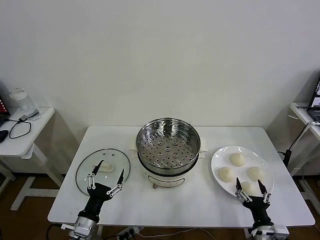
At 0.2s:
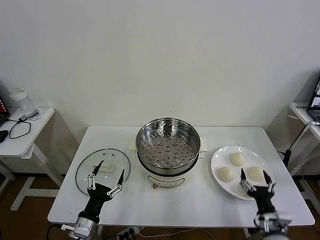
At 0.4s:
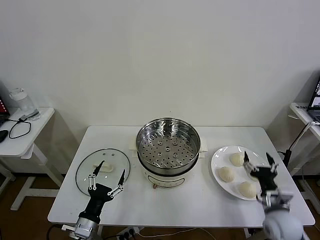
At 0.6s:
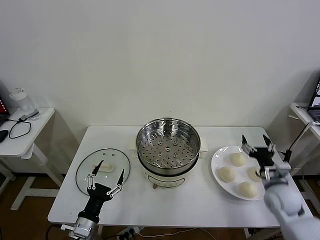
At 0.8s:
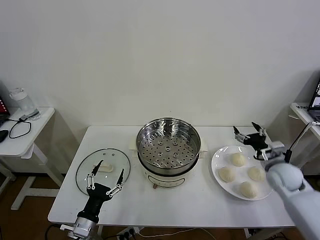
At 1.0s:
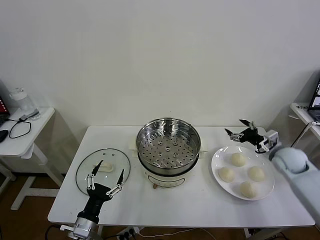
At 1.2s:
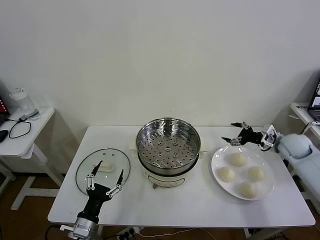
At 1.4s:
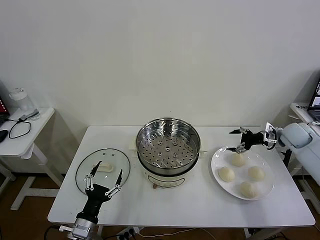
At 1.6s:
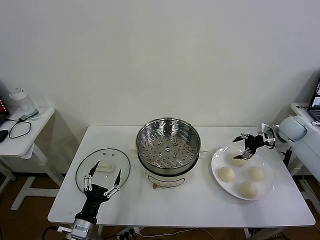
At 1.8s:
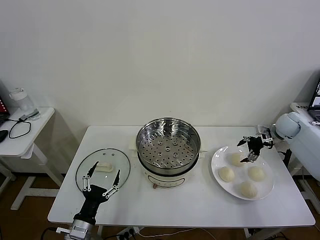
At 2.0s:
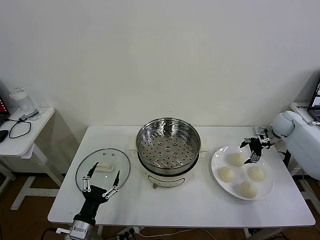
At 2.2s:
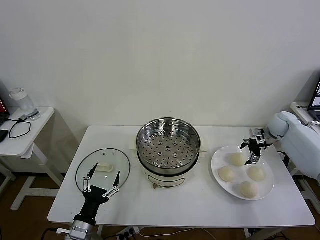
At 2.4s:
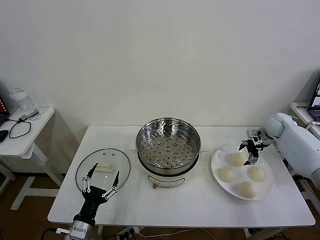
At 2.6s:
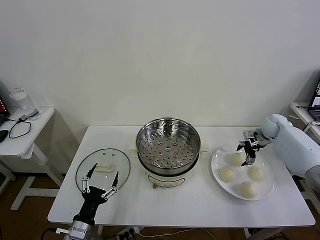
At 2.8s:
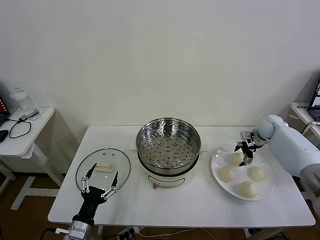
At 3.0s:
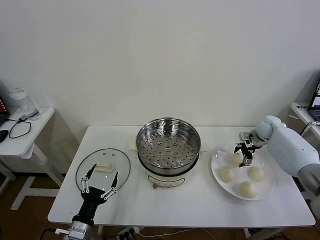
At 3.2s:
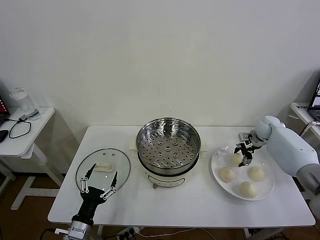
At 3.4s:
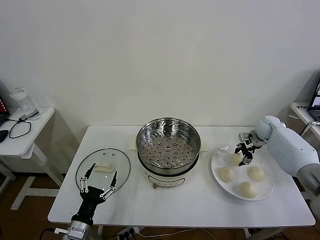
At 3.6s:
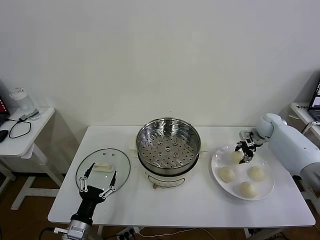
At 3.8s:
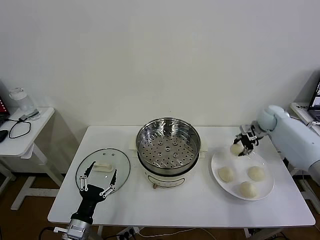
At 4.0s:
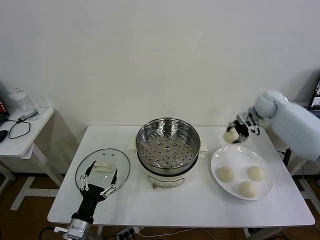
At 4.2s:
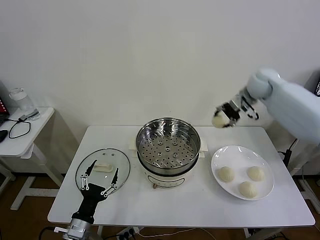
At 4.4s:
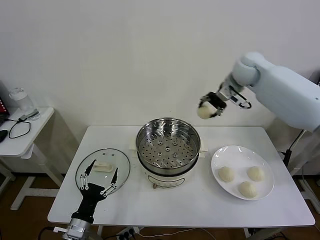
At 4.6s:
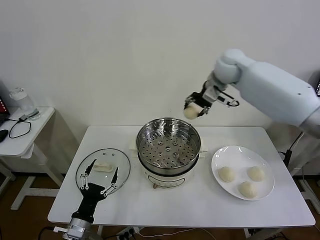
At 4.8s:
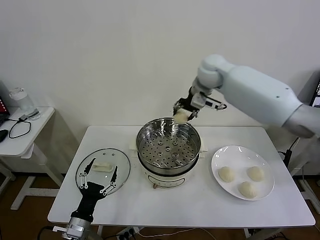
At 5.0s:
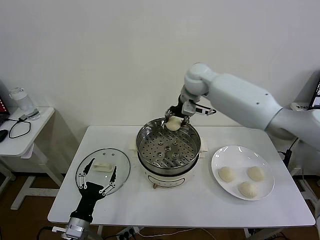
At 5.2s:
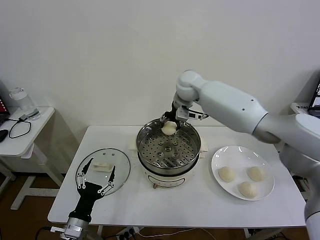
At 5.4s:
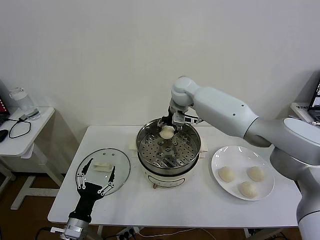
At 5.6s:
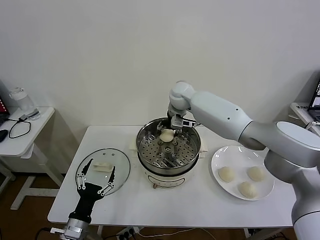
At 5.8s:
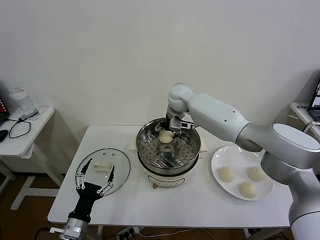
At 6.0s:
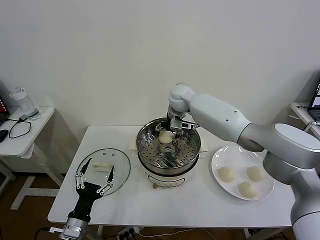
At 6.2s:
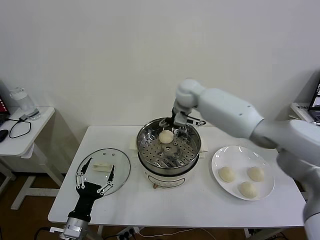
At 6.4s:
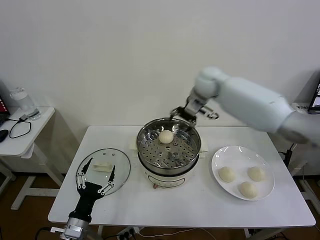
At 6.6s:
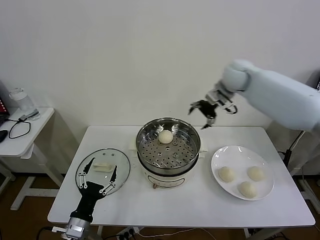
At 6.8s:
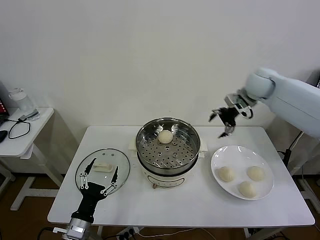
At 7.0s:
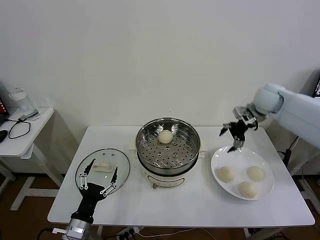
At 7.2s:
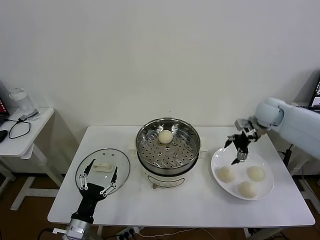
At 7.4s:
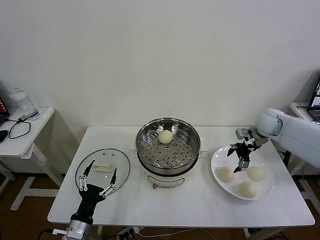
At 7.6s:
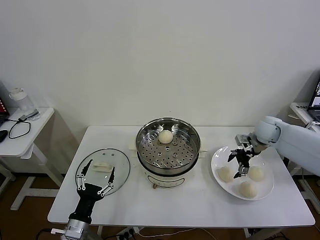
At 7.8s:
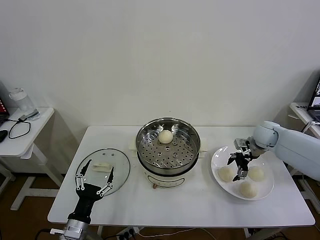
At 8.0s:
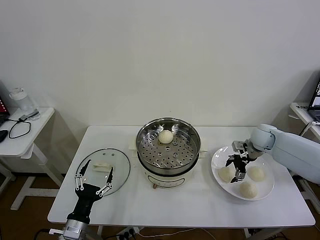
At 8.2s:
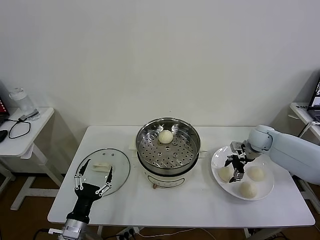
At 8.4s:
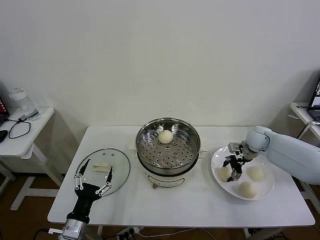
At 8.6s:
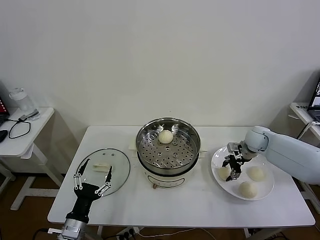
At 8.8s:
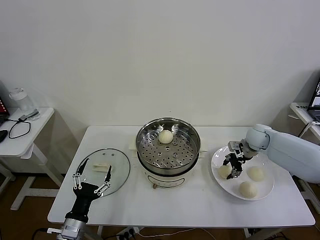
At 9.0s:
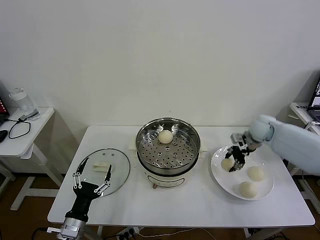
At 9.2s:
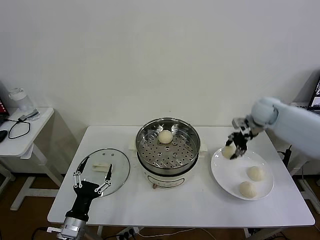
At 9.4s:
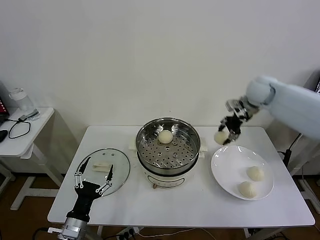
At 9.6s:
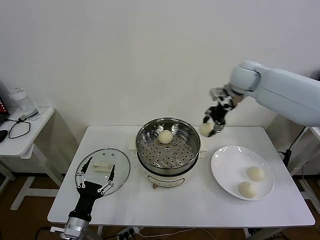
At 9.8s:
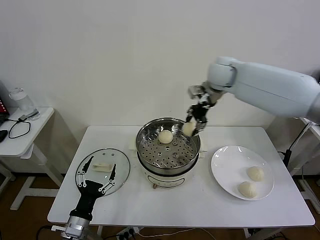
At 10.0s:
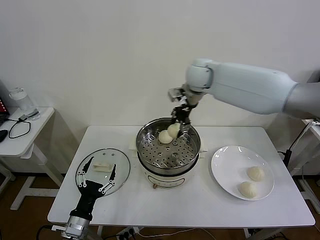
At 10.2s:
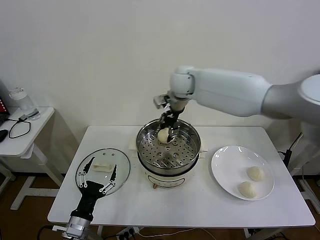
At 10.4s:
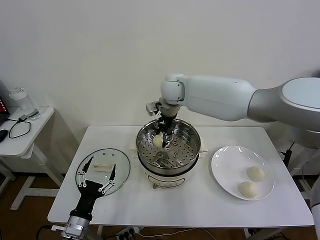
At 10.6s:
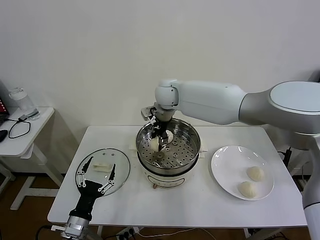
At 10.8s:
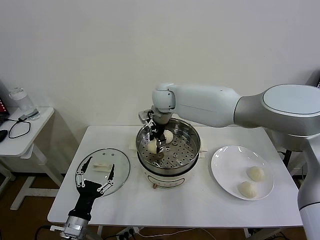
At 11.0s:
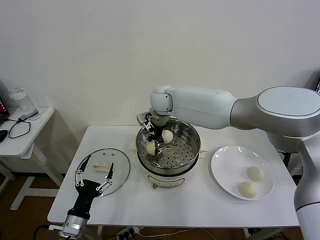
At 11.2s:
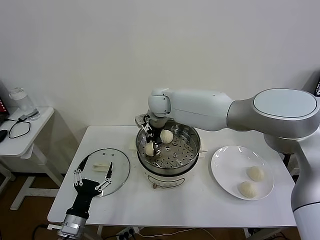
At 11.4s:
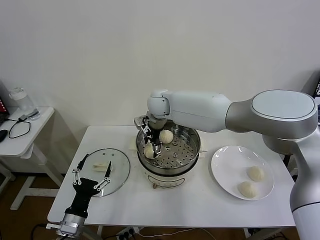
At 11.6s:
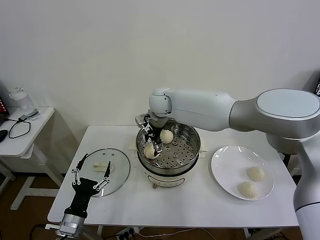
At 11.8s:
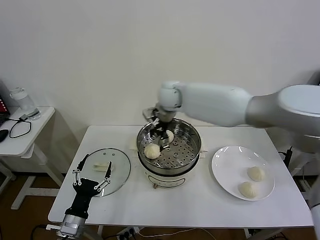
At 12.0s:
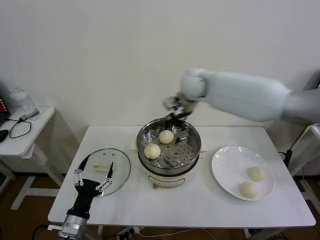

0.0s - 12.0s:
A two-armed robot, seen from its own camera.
Task of the whole recording: take steamed baozi put them in steamer then cover it.
Step, 0.0s - 3.4s: Grasp the baozi in the plate with right gripper.
Step, 3.6s - 6.0s: Place the baozi on the steamer with right gripper.
Step, 6.2s - 8.6s: Grasp the baozi in the plate with right gripper.
Step, 8.8s - 11.4s: Place the baozi on the steamer with right gripper.
1.6s - 3.0s: The right gripper travels downward and forward by roughly 10 cm.
3.0s - 4.4s: The right gripper heads upward and to the left, covering some 35 cm, and closes its fingers.
4.4s - 6.0s: The right gripper goes approximately 20 cm to the left and downward, and opens its fingers.
6.0s - 7.6s: The right gripper shifts about 30 cm to the right.
7.6s - 9.0s: The right gripper closes its fingers.
9.0s - 10.4s: The right gripper is displaced to the left by about 35 cm.
10.4s - 12.0s: The right gripper is displaced to the right by approximately 10 cm, and opens its fingers.

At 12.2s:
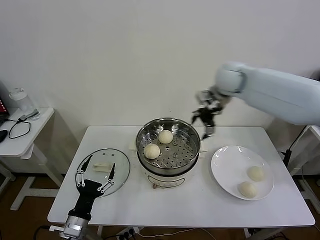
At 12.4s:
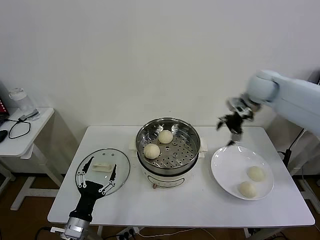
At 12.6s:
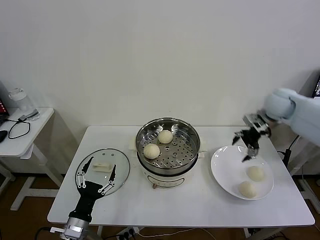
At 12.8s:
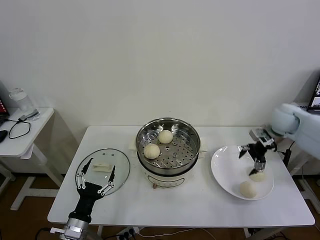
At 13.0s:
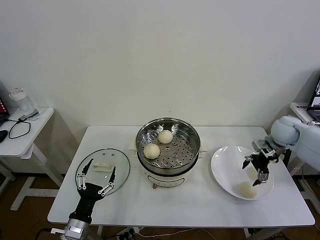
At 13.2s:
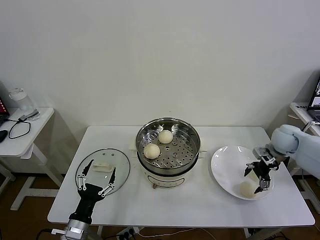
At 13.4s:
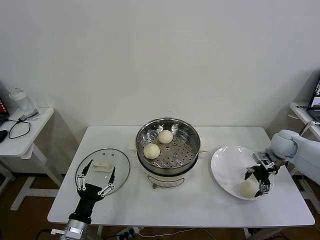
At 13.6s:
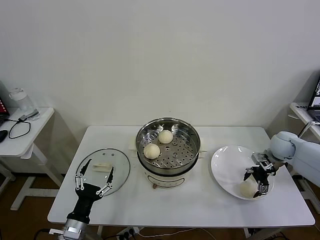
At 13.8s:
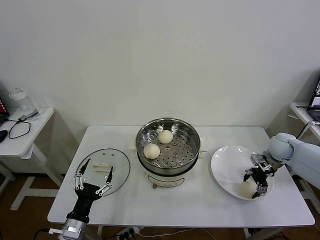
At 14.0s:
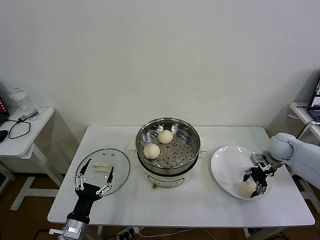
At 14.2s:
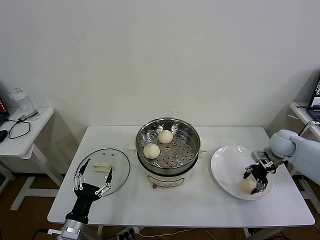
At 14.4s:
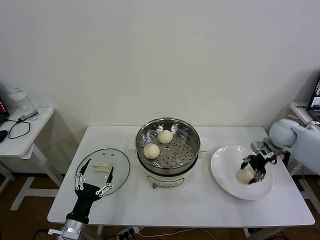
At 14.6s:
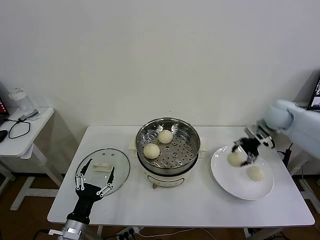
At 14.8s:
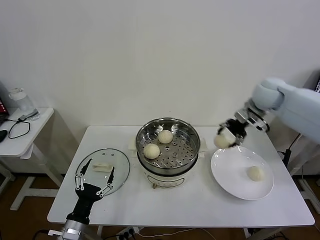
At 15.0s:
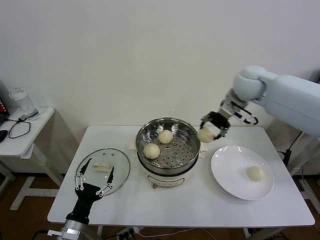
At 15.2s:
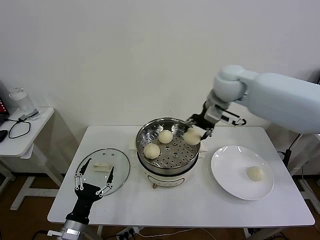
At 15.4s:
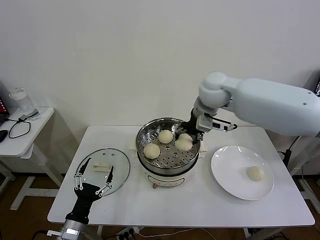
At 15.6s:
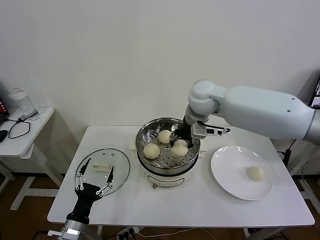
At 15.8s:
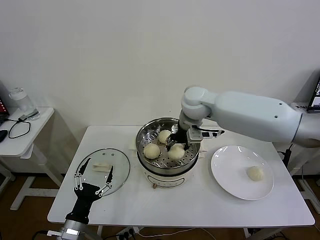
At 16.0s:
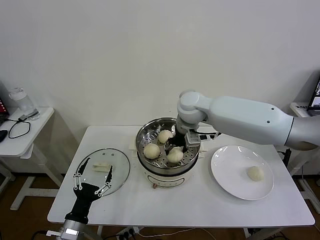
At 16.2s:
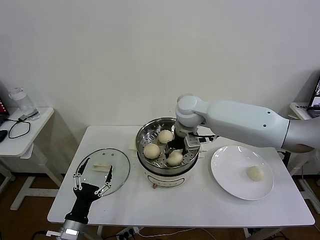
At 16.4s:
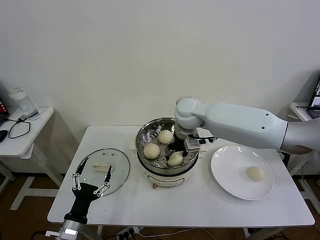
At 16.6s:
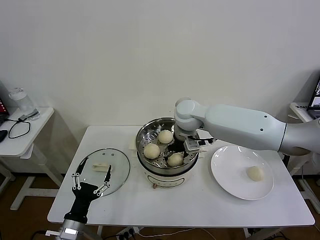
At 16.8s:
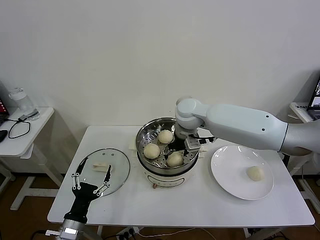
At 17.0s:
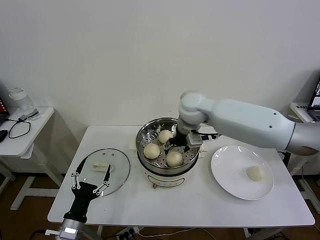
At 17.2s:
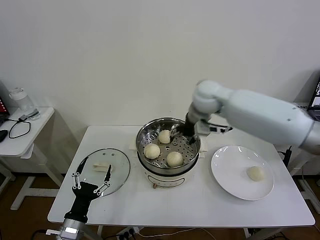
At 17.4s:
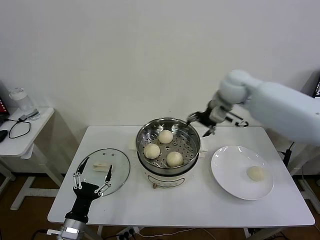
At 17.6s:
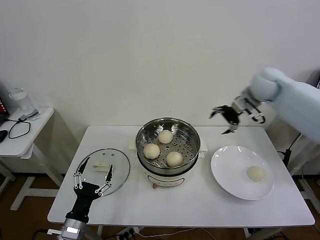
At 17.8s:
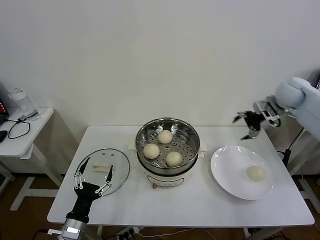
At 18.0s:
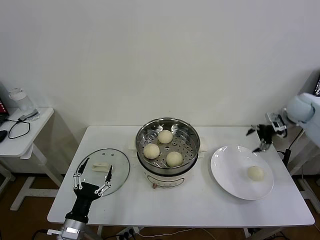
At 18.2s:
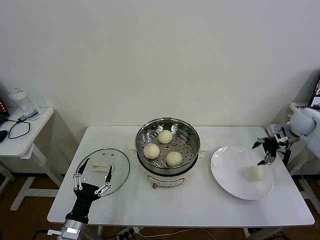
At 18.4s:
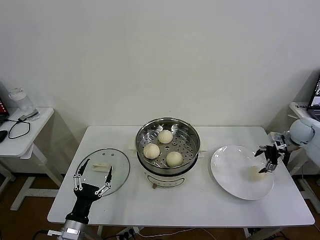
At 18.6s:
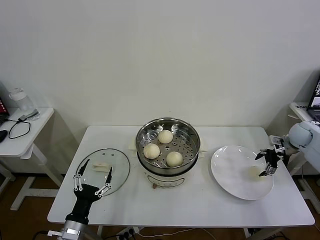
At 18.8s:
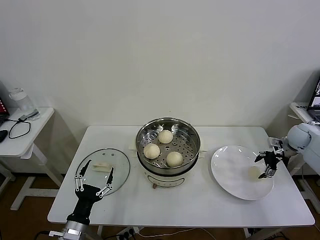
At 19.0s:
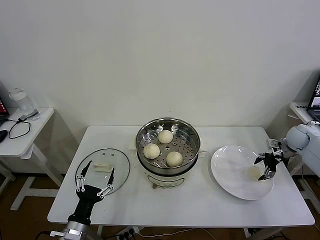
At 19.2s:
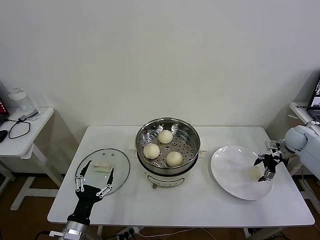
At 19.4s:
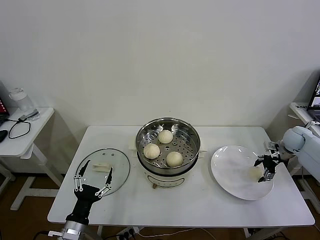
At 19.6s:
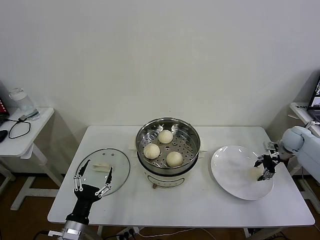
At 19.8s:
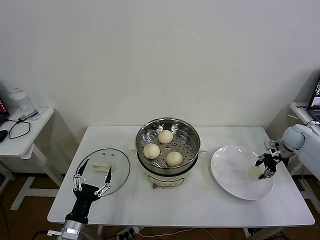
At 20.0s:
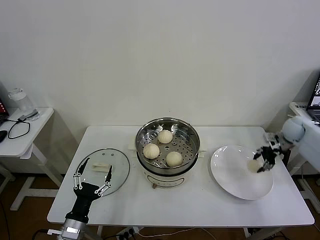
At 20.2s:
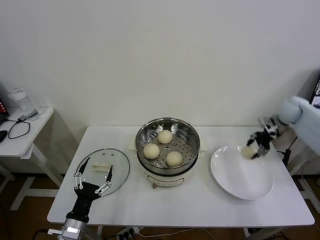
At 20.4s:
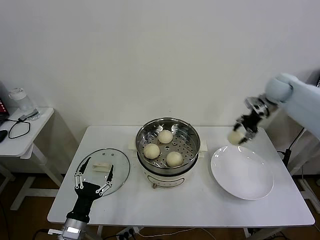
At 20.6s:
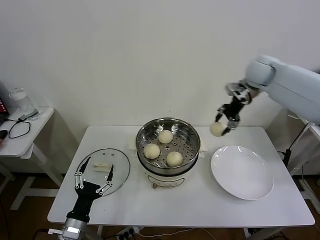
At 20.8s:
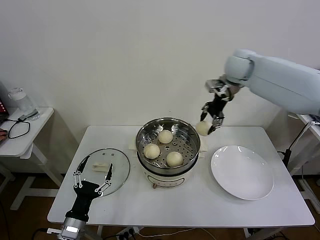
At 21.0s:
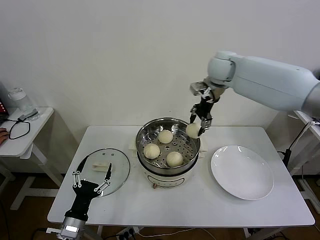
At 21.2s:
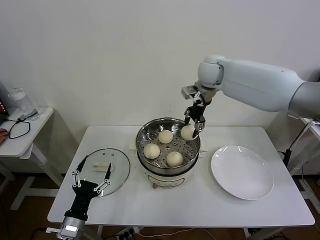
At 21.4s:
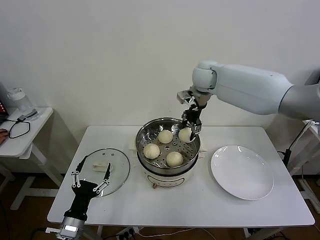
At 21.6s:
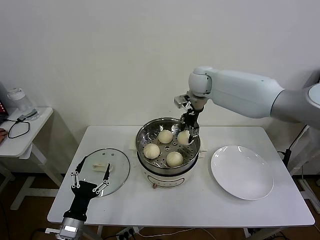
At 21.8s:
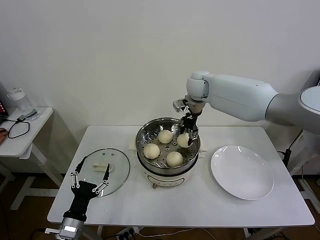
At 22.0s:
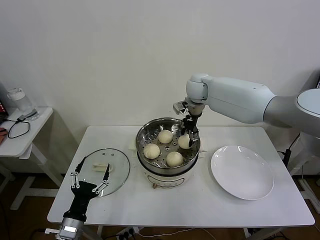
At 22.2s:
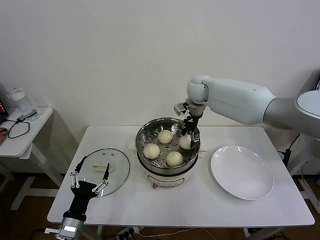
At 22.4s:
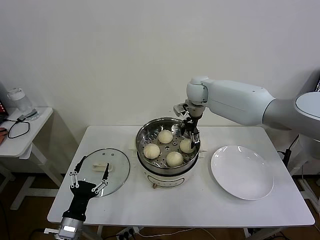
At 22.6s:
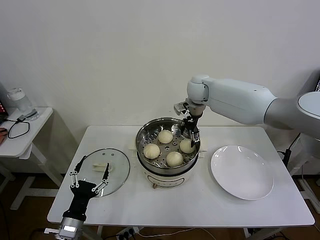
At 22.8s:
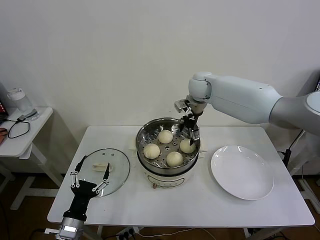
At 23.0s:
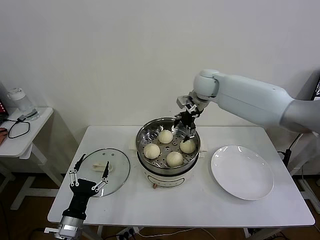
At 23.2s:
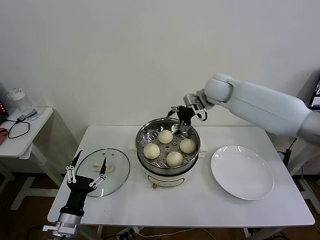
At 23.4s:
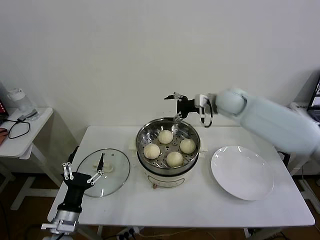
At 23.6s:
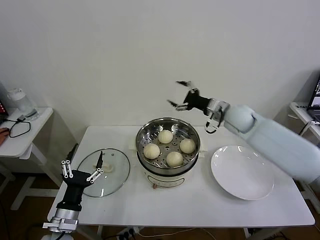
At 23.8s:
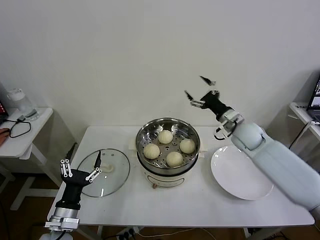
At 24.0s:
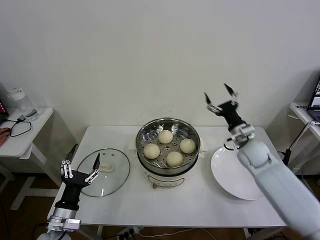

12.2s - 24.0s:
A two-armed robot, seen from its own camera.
Task of the whole recording: take steamed baozi put them in steamer then cover it.
Step, 12.2s - 14.0s: Grasp the baozi in the plate with right gripper.
Step, 14.2s - 16.6s: Place the baozi on the steamer with right gripper.
Step, 17.0s - 19.6s: Grasp the baozi in the plate with right gripper.
Step, 20.0s - 22.4s: Place the baozi on the steamer with right gripper.
12.2s - 13.6s: The right gripper moves downward and to the right, about 30 cm.
13.6s - 15.2s: The right gripper goes some 35 cm to the left and upward, and closes.
15.2s - 16.6s: The right gripper heads to the left and downward, covering about 15 cm, and opens up.
16.6s - 18.2s: The right gripper moves to the right, about 40 cm.
18.2s - 19.6s: The right gripper goes some 5 cm downward, and closes.
19.6s - 21.0s: The right gripper moves to the left and upward, some 40 cm.
21.0s - 22.6s: The right gripper travels downward by approximately 10 cm, and opens its fingers.
22.6s - 24.0s: The right gripper heads to the right, backward and downward, covering roughly 30 cm.
